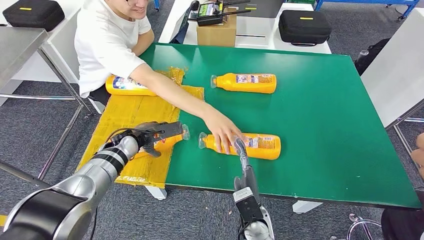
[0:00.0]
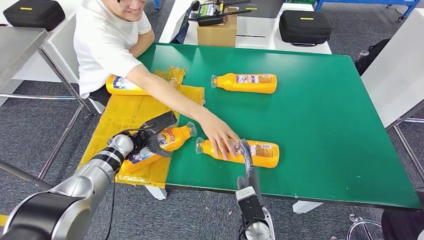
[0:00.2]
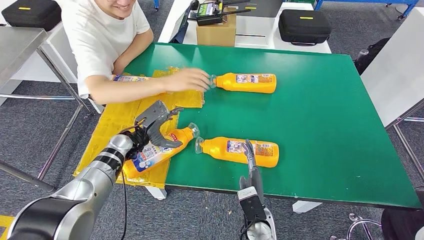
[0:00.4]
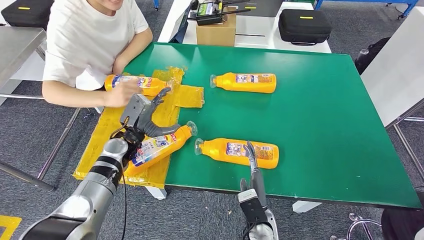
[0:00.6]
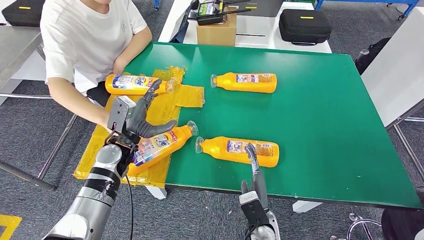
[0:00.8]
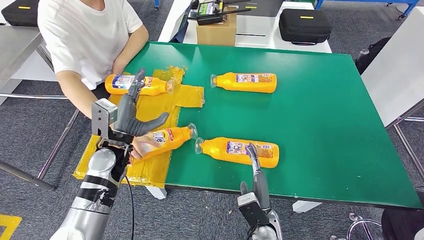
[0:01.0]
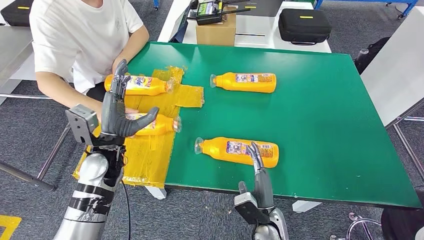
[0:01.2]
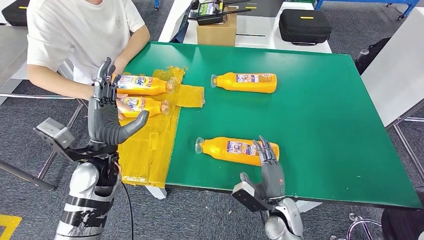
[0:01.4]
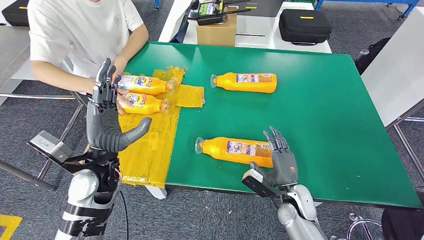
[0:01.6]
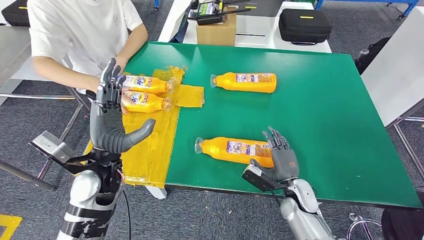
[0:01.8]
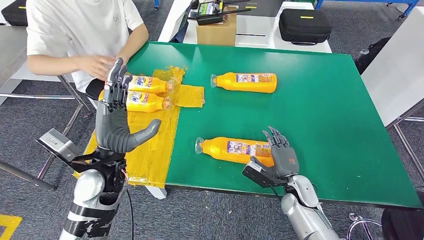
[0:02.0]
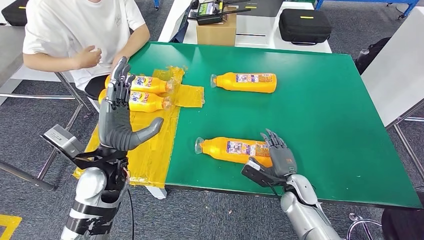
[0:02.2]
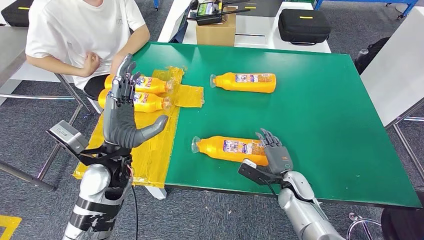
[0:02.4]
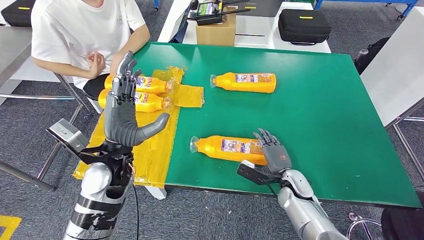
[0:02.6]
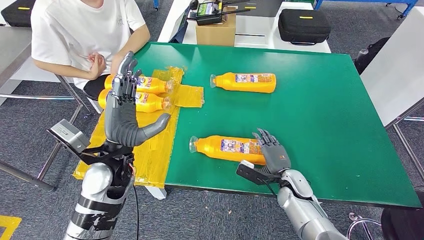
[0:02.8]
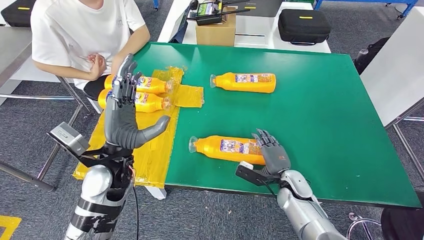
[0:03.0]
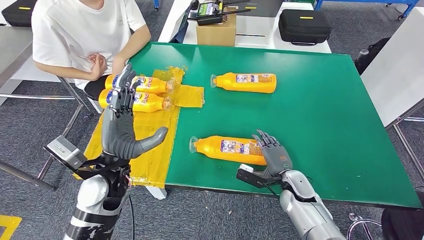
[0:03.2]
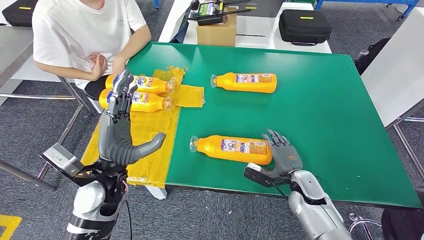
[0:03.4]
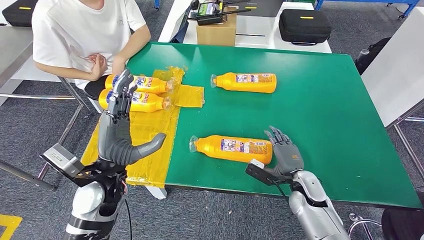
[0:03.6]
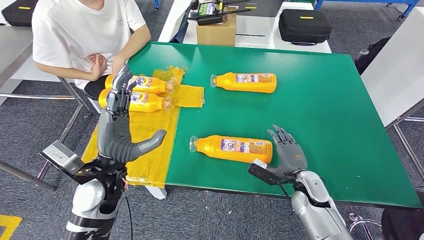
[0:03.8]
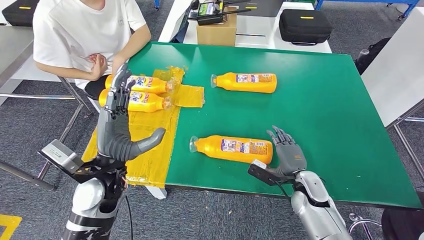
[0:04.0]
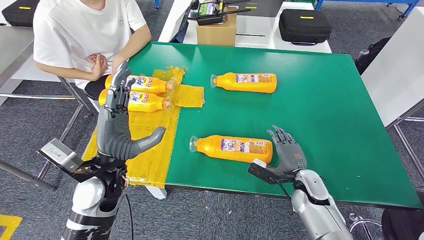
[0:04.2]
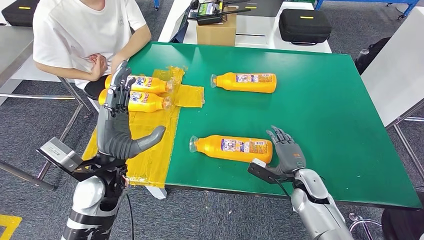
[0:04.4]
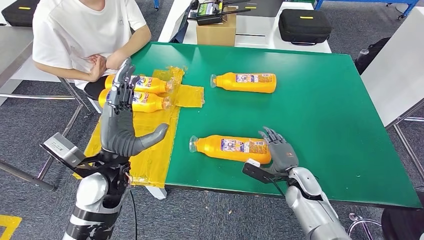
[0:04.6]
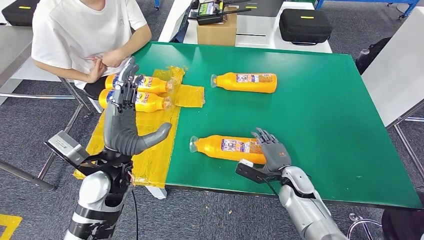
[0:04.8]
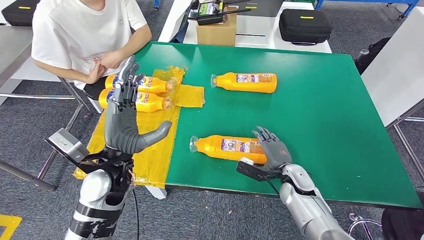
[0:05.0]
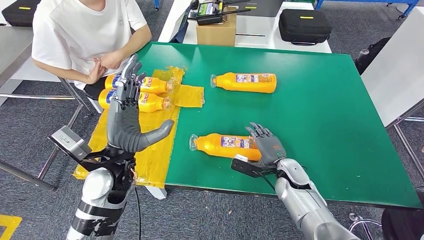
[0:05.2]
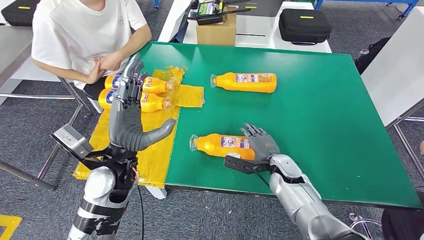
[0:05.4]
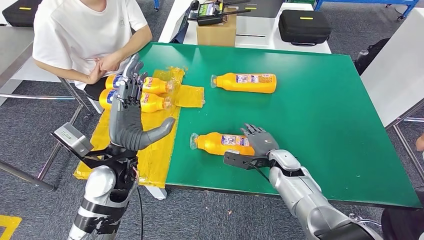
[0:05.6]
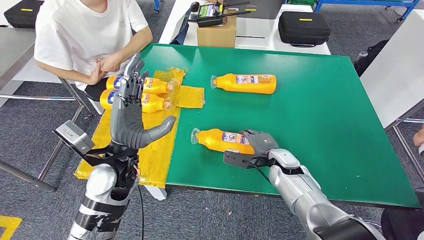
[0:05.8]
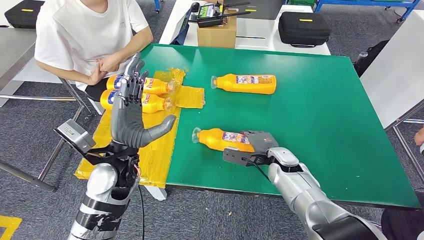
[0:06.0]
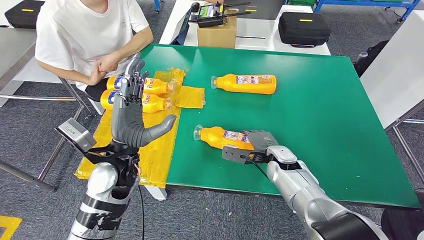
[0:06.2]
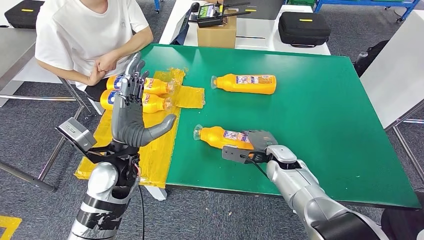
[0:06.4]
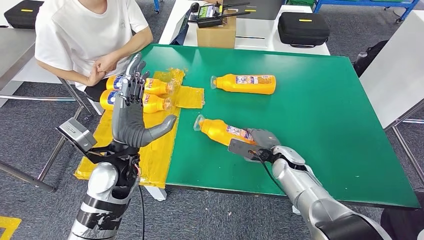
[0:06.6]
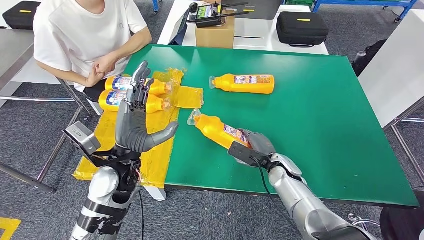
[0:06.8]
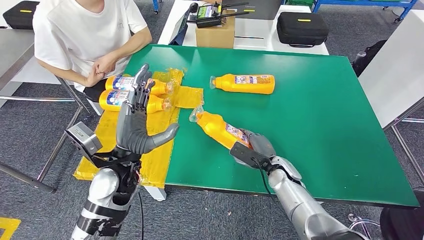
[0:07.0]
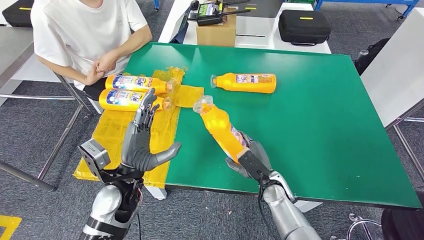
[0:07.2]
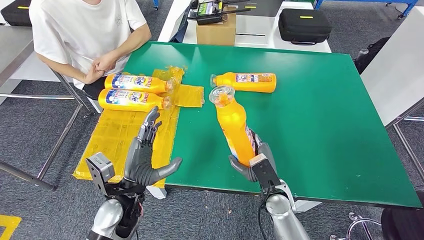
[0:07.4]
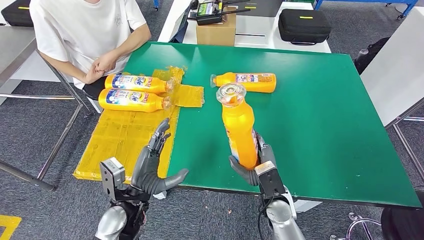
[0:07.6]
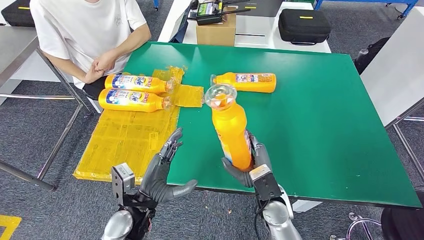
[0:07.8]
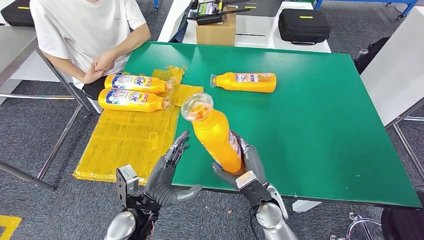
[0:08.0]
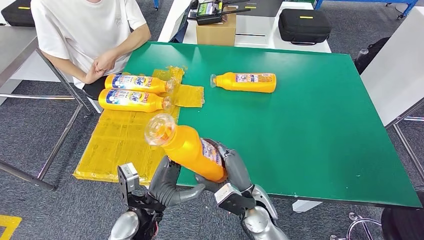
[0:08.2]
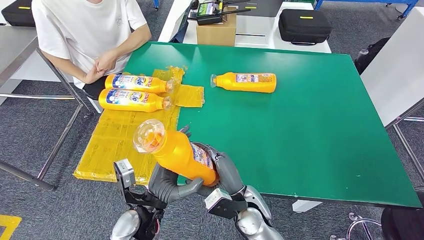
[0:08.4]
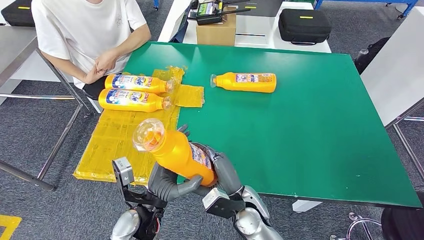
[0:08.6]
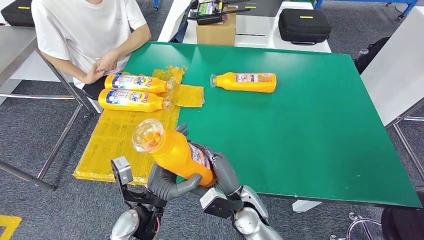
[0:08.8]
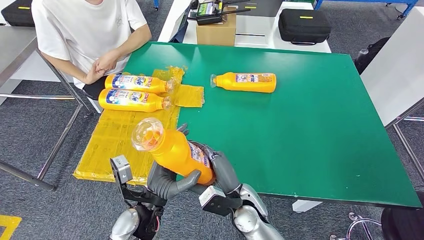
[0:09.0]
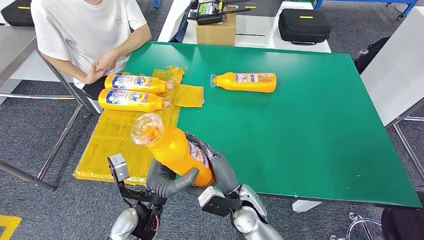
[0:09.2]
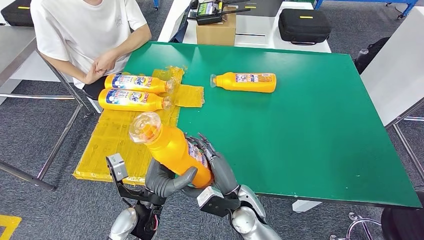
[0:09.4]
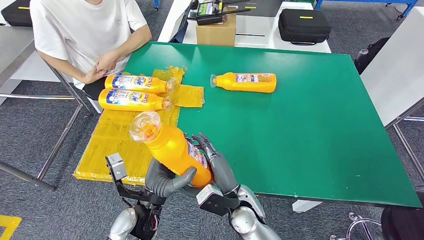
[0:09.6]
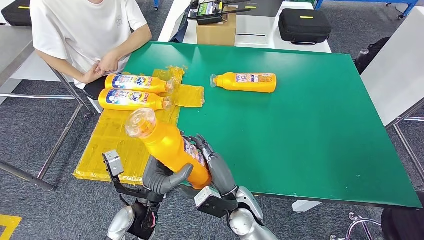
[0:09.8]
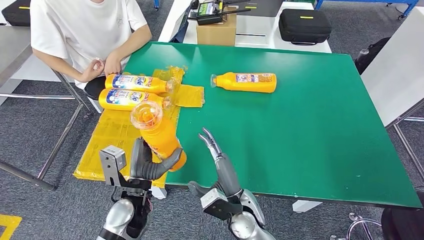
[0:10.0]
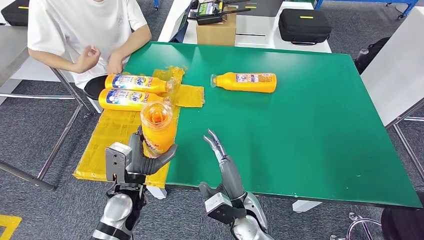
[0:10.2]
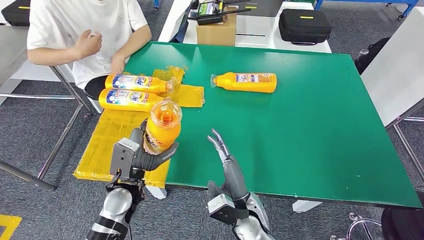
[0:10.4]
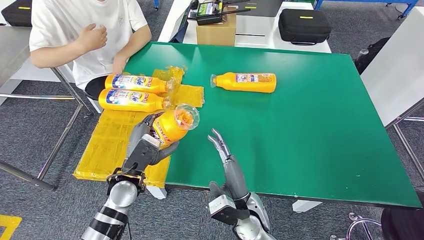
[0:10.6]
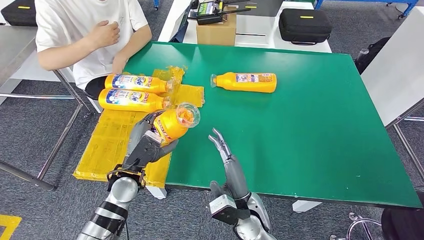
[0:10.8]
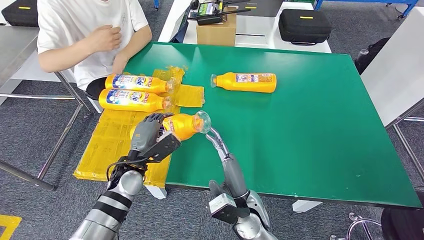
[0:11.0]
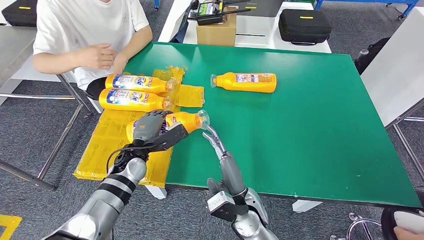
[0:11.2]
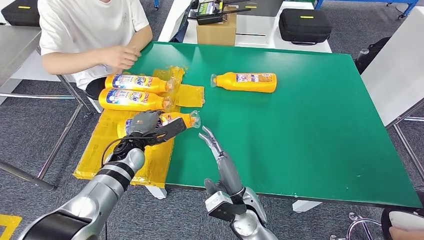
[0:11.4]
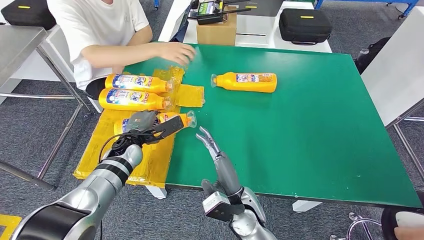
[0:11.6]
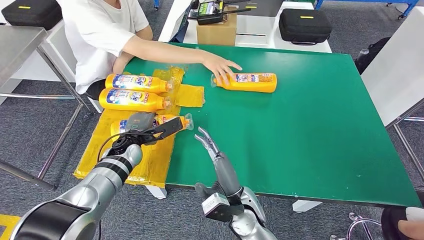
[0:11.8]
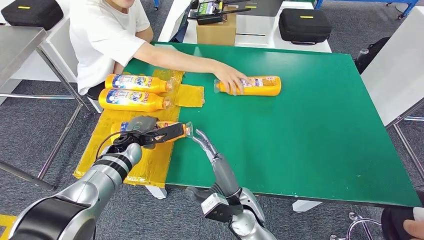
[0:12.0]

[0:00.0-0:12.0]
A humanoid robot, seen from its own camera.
Step, 0:01.8 to 0:08.6: Pick up the fast-moving consumer goods bottle from the table.
0:03.0 to 0:04.4: The hands move only a little.
0:07.6 to 0:09.0: The right hand goes roughly 10 cm to the left.
0:09.0 to 0:10.4: The left hand heads to the left and forward, covering some 10 cm.

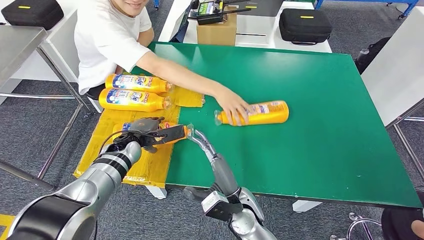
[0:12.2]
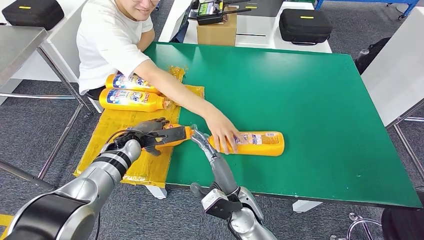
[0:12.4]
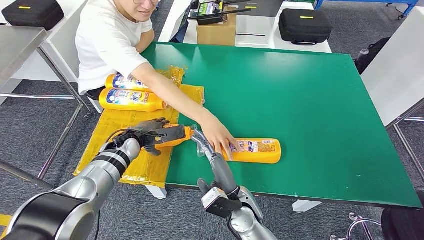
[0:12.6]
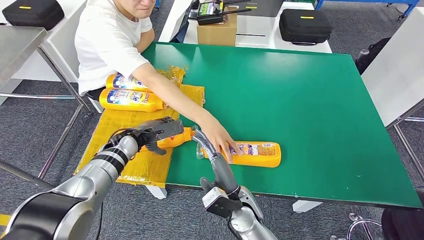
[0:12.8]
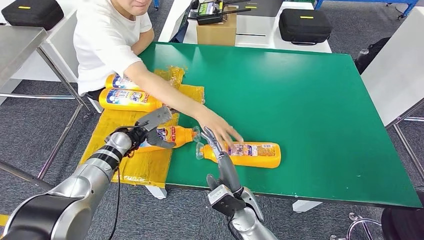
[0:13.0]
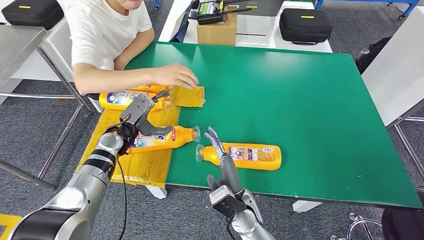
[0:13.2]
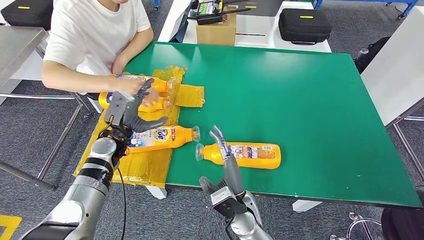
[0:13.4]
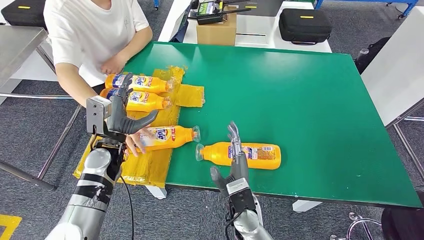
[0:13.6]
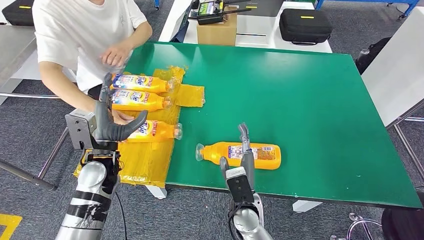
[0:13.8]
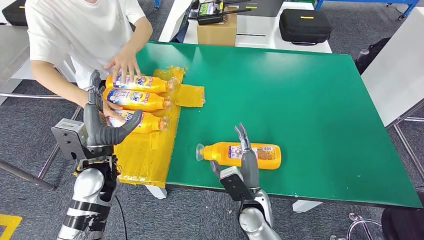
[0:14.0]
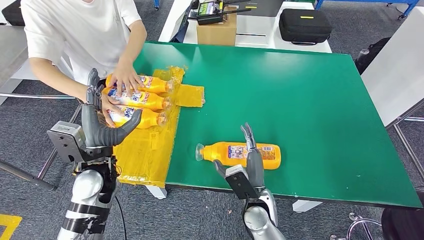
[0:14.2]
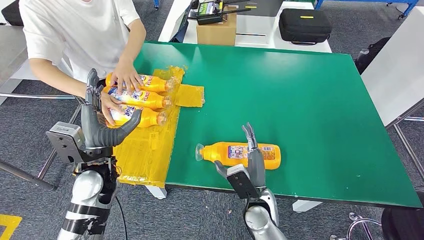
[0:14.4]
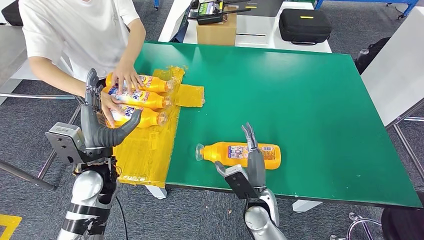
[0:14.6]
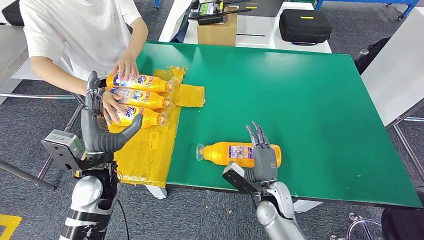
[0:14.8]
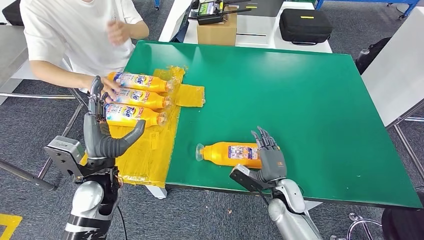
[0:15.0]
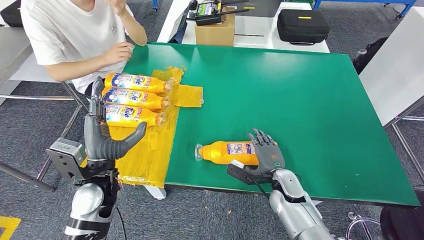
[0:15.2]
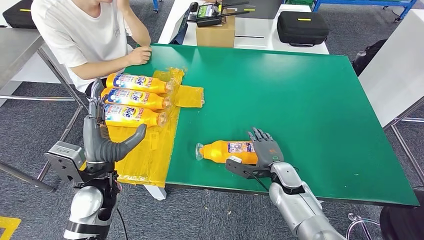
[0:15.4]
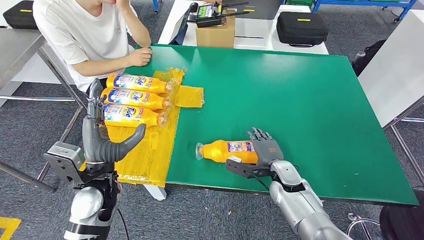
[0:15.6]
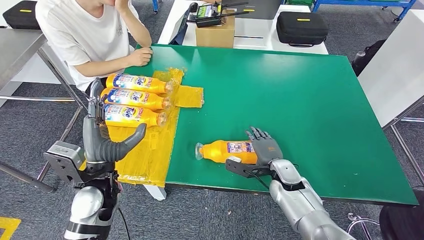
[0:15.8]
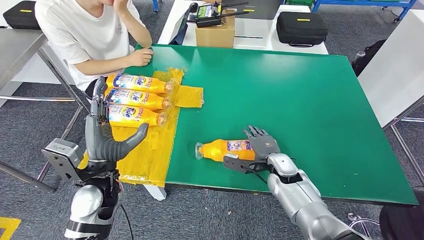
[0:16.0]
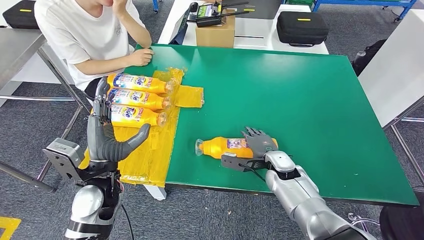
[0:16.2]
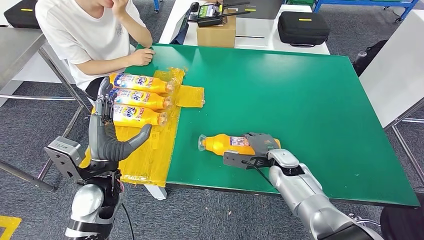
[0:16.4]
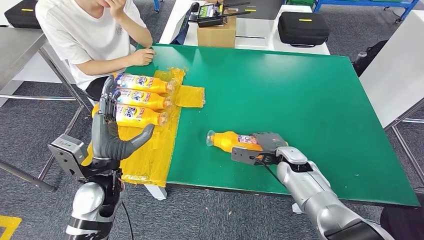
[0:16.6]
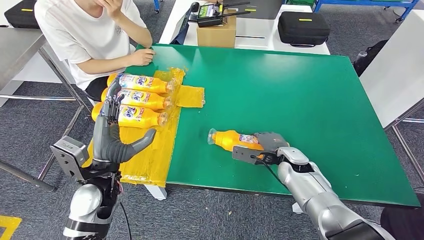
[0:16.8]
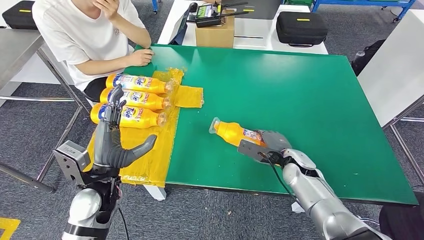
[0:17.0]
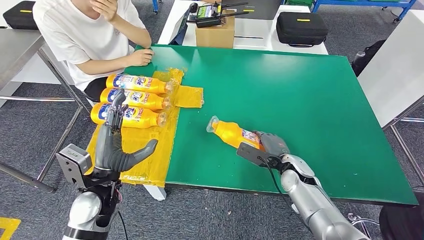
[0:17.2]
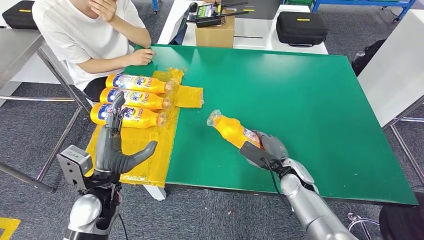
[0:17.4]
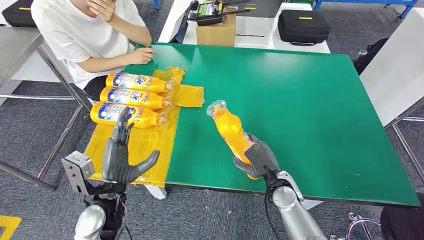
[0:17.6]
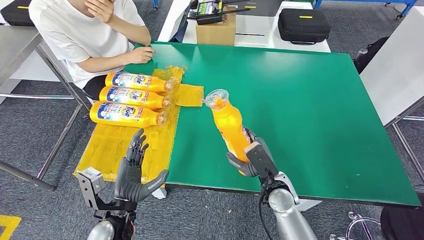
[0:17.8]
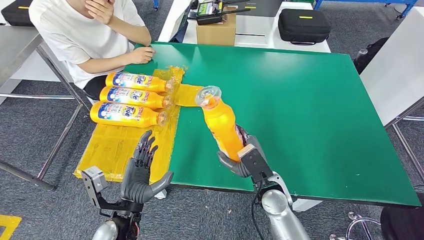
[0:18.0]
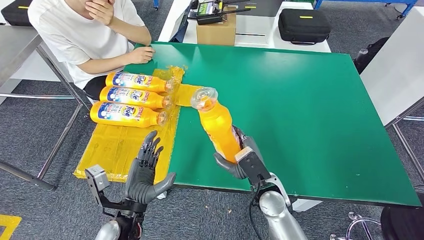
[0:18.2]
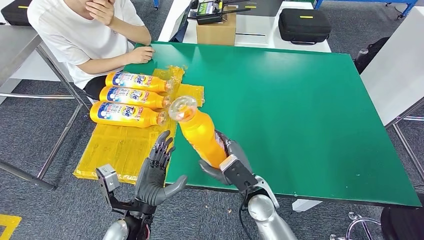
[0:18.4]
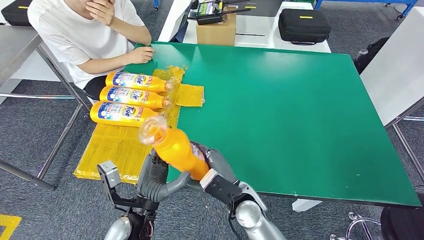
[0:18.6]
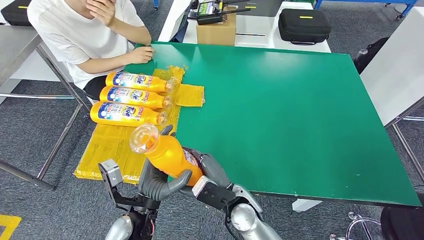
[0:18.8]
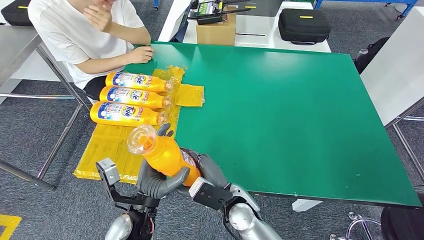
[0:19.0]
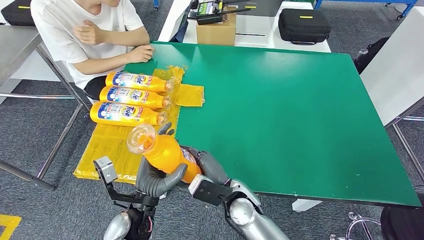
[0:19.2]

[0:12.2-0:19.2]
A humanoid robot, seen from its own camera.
0:17.8 to 0:19.2: The left hand travels to the right by about 5 cm, while the right hand is displaced to the left by approximately 10 cm.
